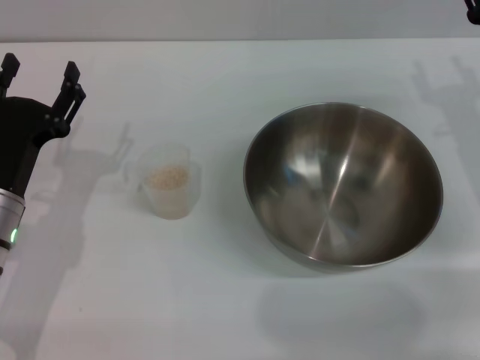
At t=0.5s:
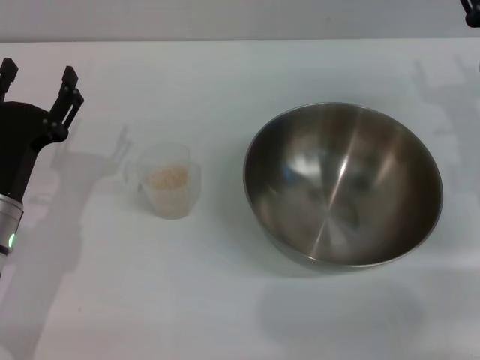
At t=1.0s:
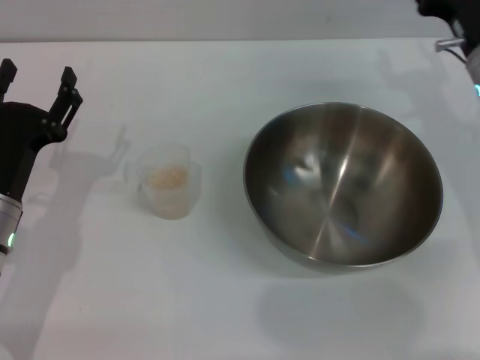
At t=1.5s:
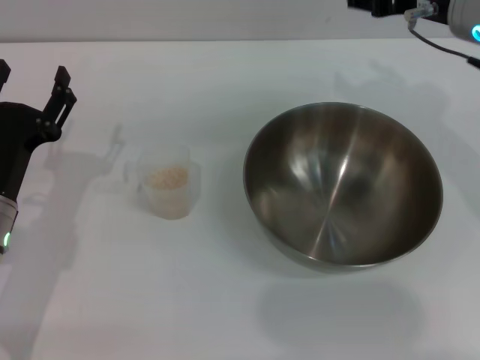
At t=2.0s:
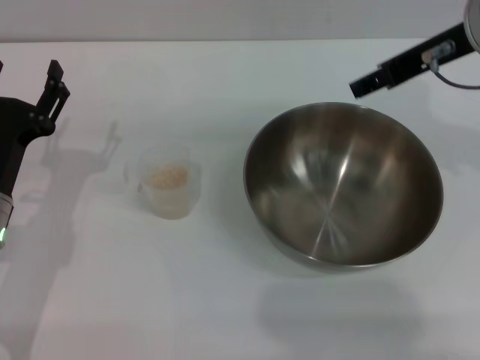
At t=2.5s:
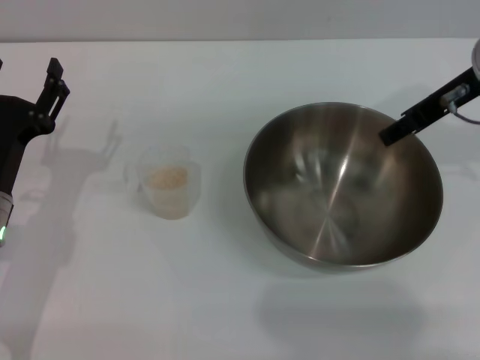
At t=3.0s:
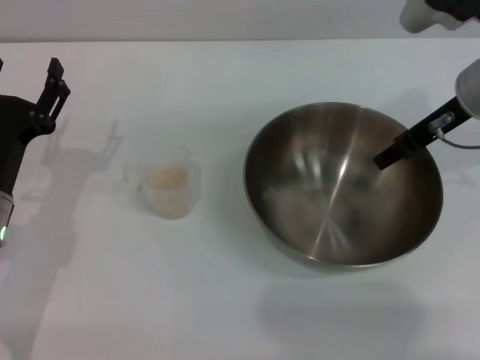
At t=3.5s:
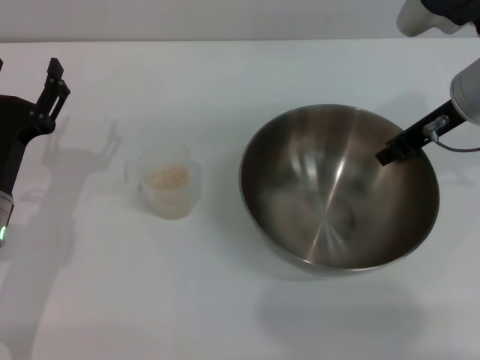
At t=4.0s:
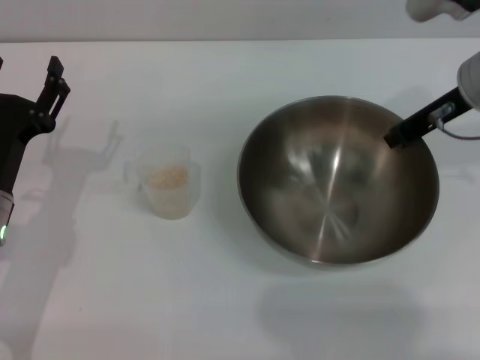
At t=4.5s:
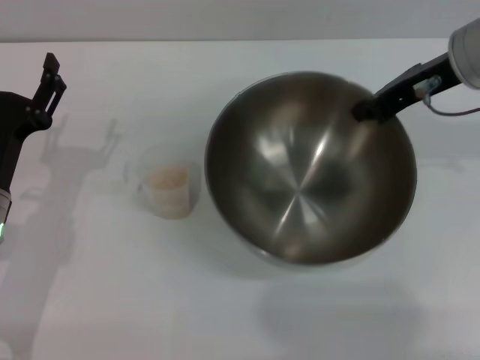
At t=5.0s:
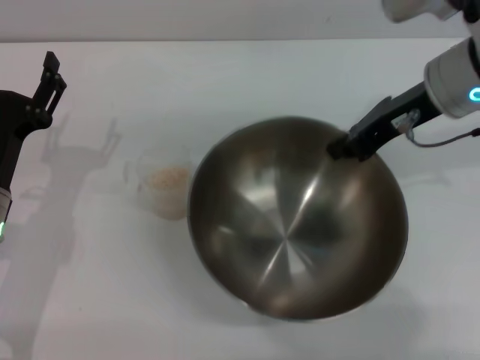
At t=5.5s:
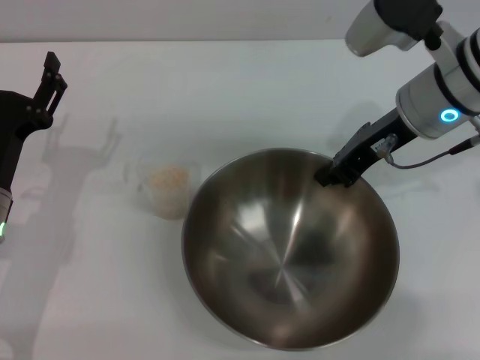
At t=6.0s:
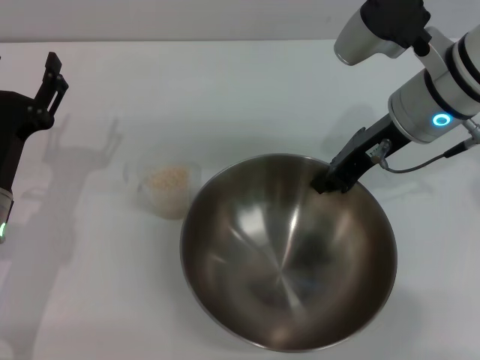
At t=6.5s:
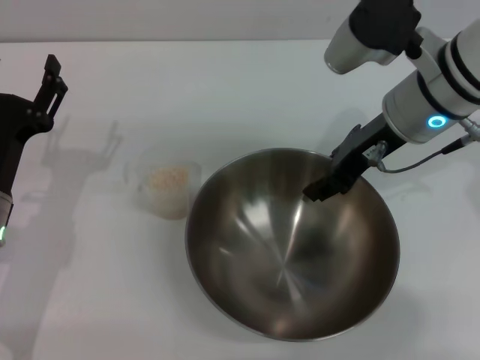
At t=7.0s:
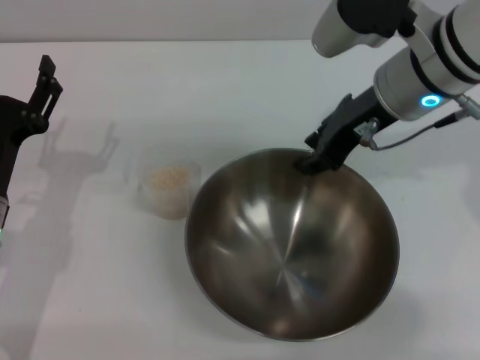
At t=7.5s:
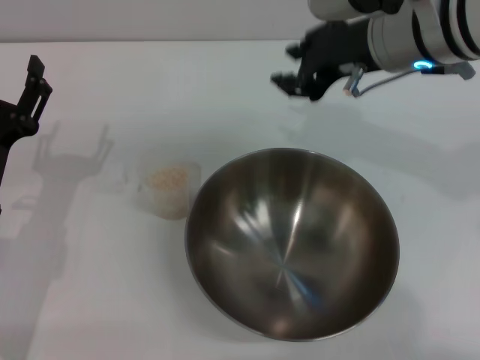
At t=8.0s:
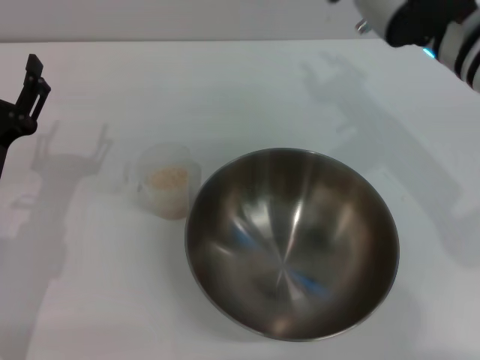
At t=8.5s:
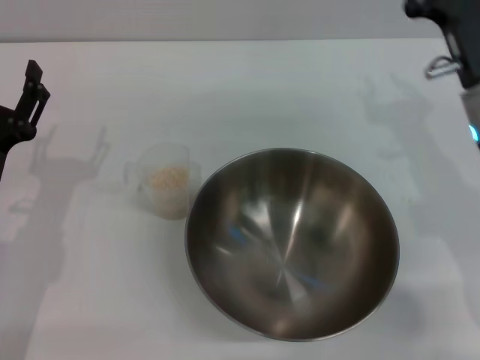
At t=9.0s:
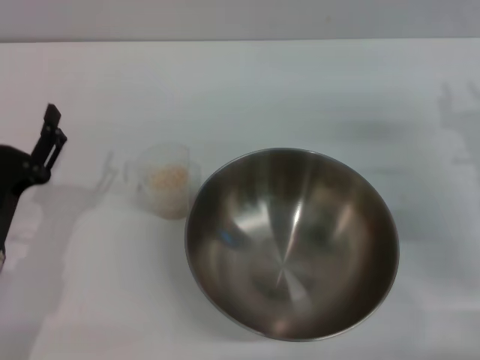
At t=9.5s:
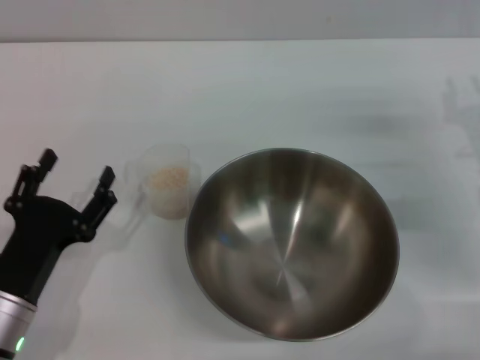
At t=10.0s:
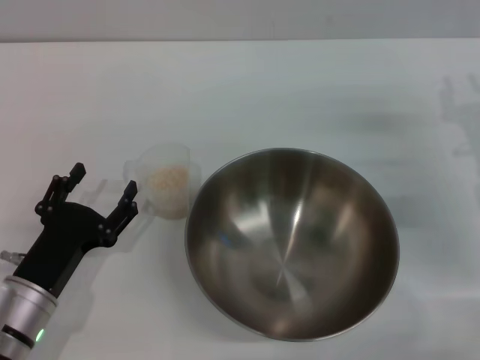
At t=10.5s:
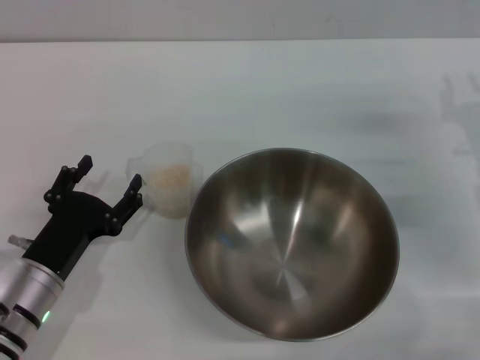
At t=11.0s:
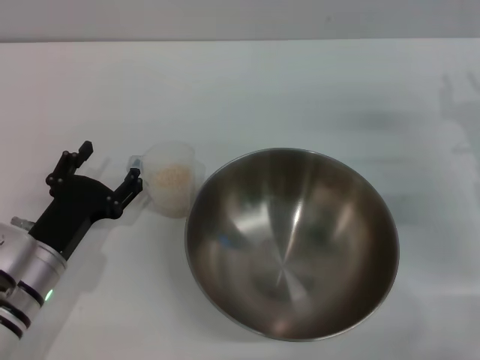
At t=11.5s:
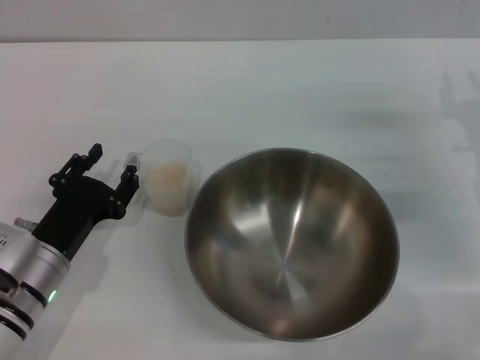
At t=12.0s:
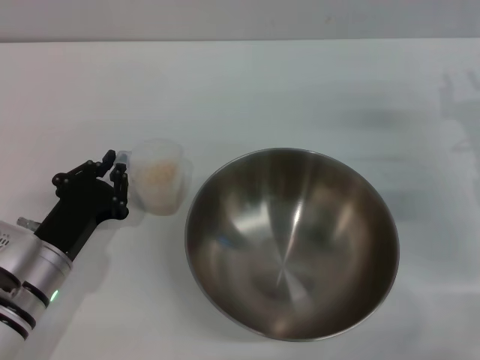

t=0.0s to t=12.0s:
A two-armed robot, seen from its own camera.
Task of the whole recording: Place the bowl in the middle of the table with one hand and pour the rice from the grain cup into it with the other hand.
Step, t=0.0s to t=4.0s: Pick up the bowl with the right gripper.
Step, t=4.5s to t=7.0s: Place the bowl in the center of view with the right gripper.
t=0.0s to t=2.0s: The right gripper travels upward and to the left by about 20 cm.
t=2.0s to t=4.0s: The right gripper heads downward, covering some 5 cm, and closes.
t=4.0s to t=6.0s: The right gripper moves to the left, some 5 cm.
t=6.0s to t=8.0s: The right gripper opens.
t=8.0s to t=10.0s: The left gripper is displaced backward and downward by about 10 cm; the right gripper goes some 20 cm to the right and downward.
t=10.0s to t=12.0s: The left gripper closes its fingers.

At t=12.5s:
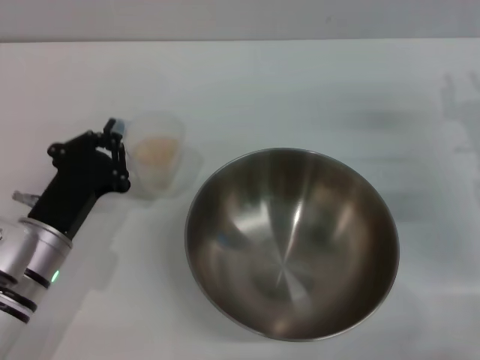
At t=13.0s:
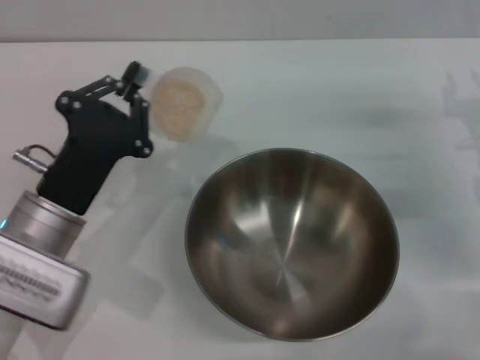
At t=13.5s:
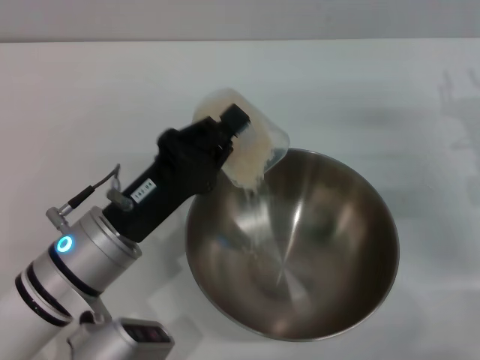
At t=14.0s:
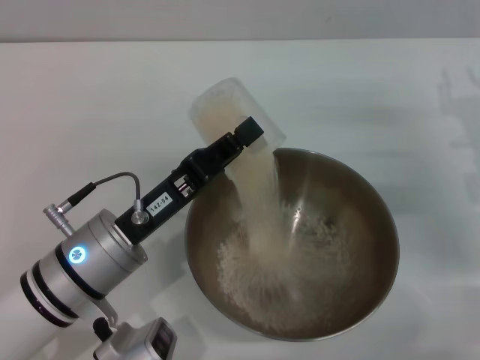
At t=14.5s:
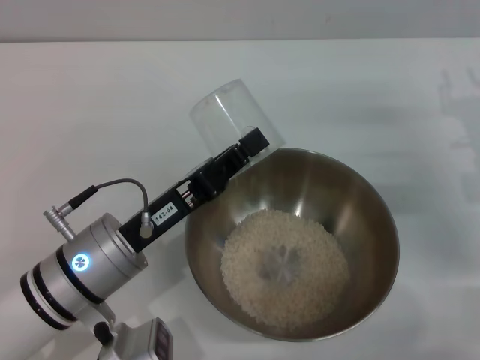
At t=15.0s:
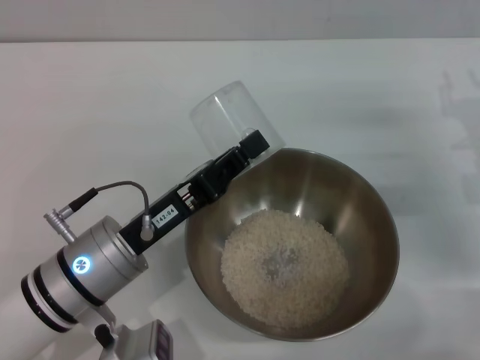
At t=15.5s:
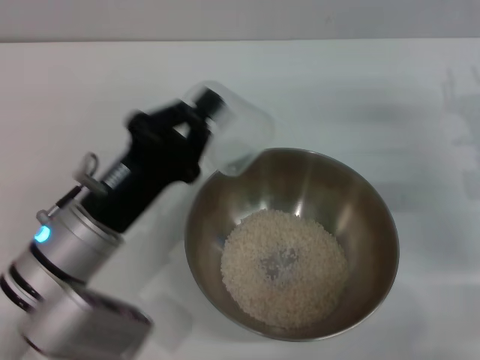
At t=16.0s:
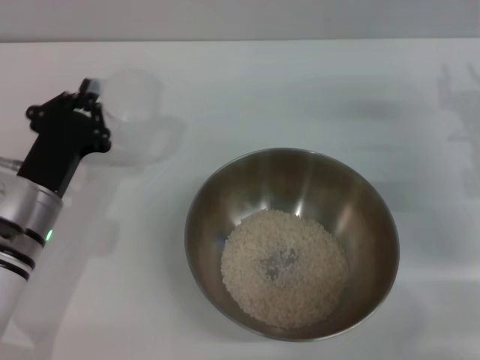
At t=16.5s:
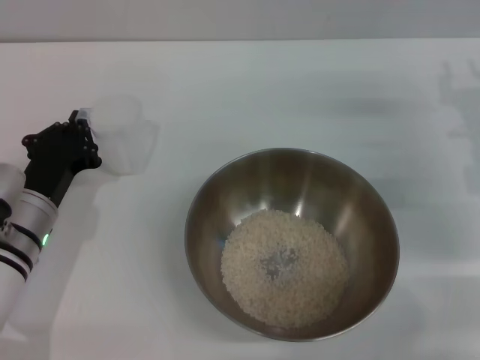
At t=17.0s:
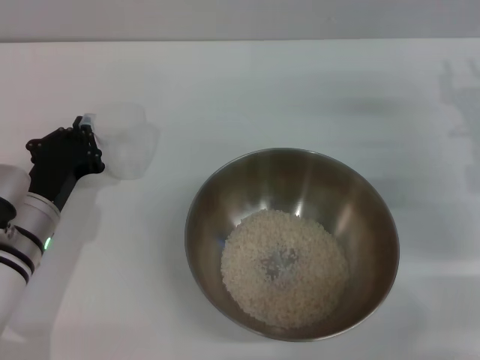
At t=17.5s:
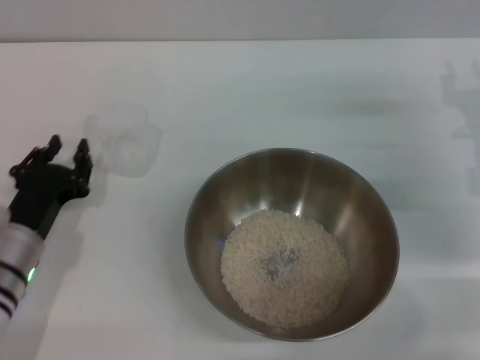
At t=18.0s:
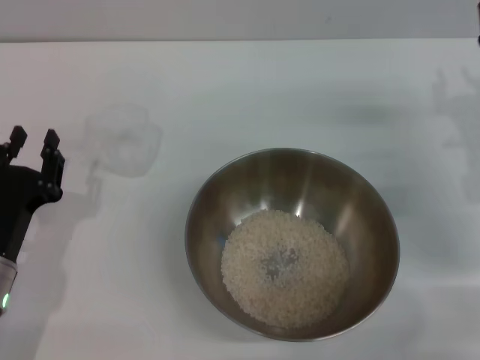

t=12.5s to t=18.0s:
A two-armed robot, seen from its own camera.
Task of the whole recording: Place the bowl in the middle of the table with one hand and pour the rice from the grain cup into it with the other hand.
Step, t=13.0s to t=15.5s: Pour the rice from the cup into the bowl with the left gripper.
Step, t=16.0s to t=17.5s: Place the cup on the table with the left gripper.
t=12.5s to t=14.5s: The left gripper shifts roughly 5 cm to the right.
t=14.5s to t=16.0s: The left gripper travels to the left by about 5 cm.
t=16.0s to t=18.0s: The left gripper goes some 5 cm backward, and opens.

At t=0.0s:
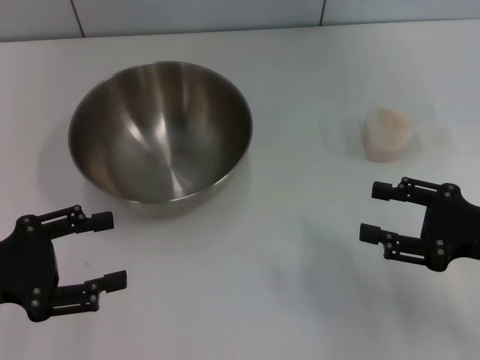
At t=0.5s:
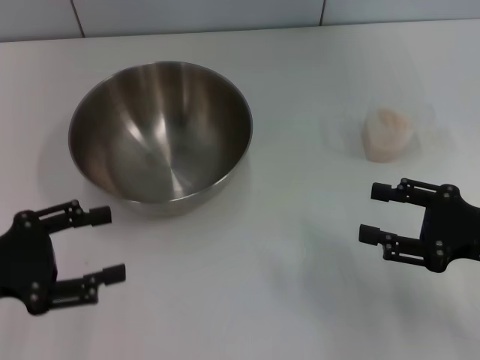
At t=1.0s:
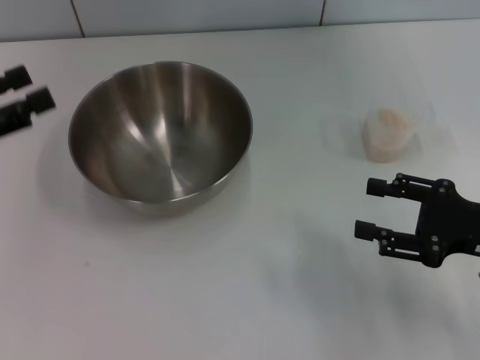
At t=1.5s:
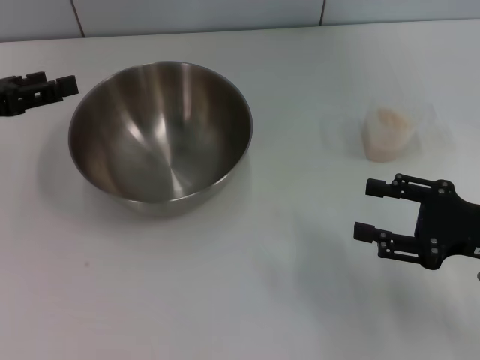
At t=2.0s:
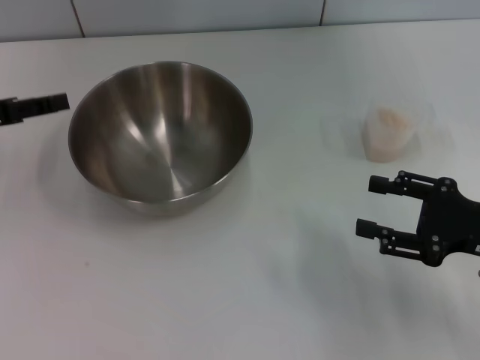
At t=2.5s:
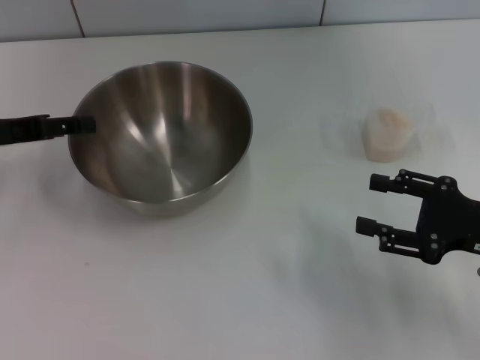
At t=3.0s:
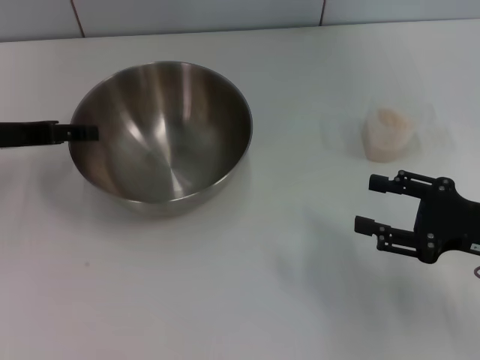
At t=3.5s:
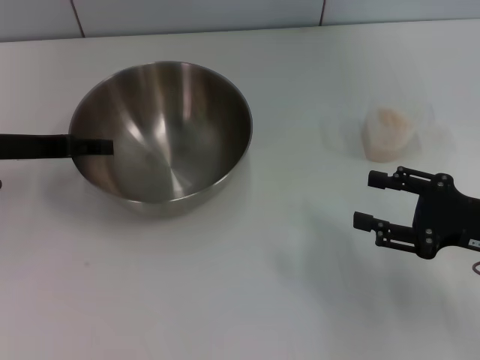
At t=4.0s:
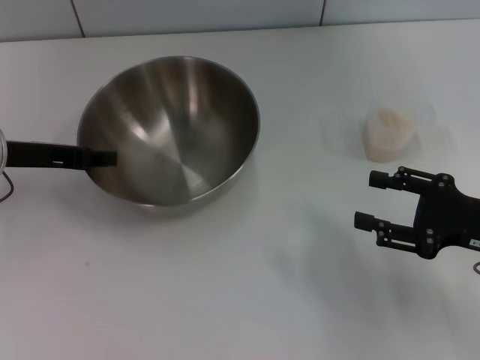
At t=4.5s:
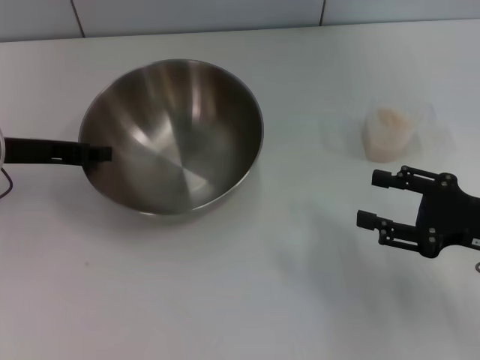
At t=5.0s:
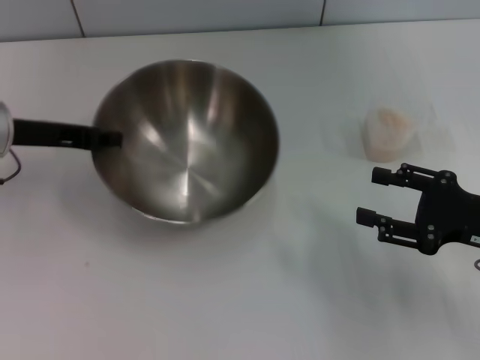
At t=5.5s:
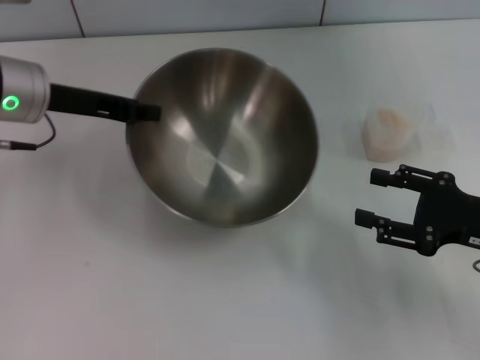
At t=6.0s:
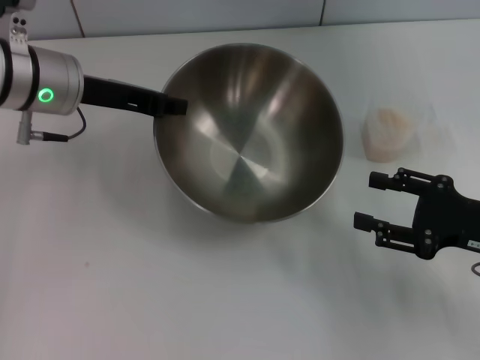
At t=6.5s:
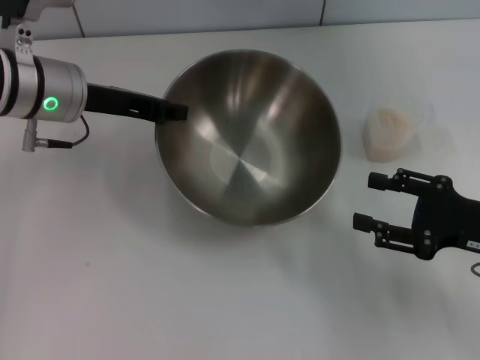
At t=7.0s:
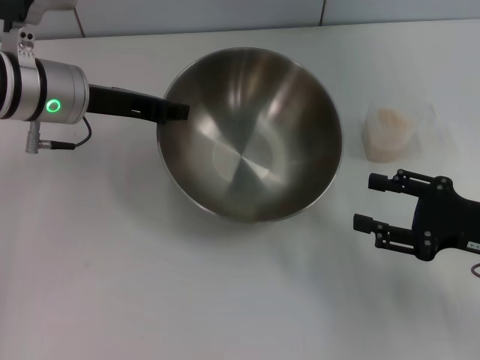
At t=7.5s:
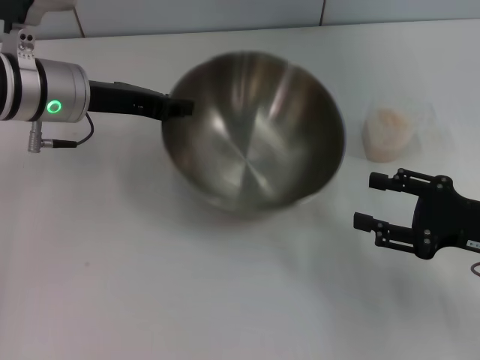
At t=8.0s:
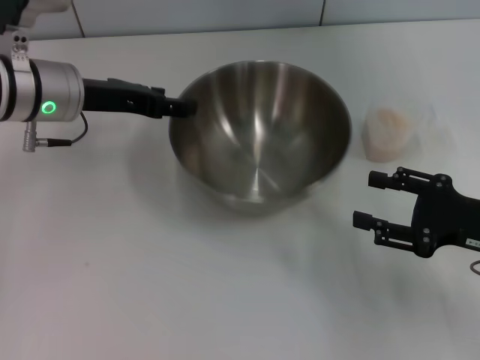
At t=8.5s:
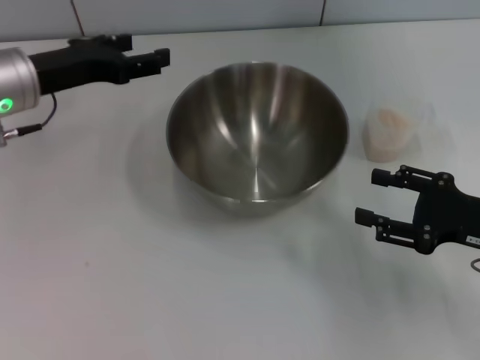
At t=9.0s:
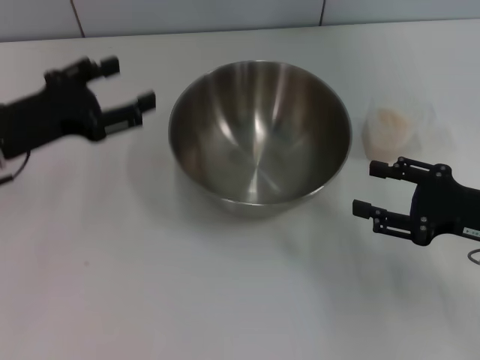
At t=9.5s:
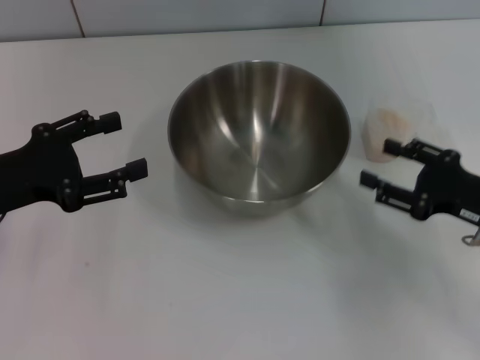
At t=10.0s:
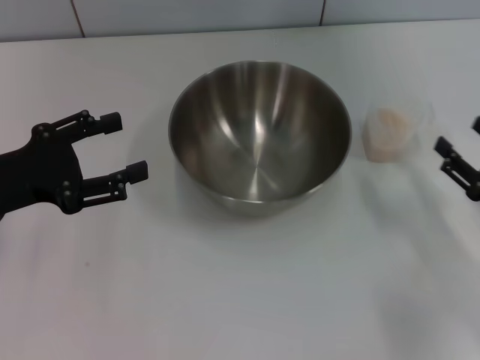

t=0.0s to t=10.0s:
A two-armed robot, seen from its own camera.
Task of the whole recording: Place the bowl in the middle of the table with one hand and pour the rice from the grain cup into it with the other hand.
Step, t=0.0s to t=5.0s: Pick up the bowl with the left gripper.
Step, t=5.5s to t=8.0s: Place the bowl in the center of view with the left gripper.
t=0.0s to t=2.0s: The left gripper shifts approximately 10 cm forward.
t=2.0s to t=4.0s: The left gripper heads to the right, covering roughly 5 cm.
t=4.0s to t=6.0s: The left gripper goes some 10 cm to the right, and closes its fingers.
t=6.0s to t=8.0s: The left gripper opens up.
t=8.0s to t=10.0s: The right gripper ends up approximately 5 cm from where it was. Meanwhile the left gripper moves backward and to the left, approximately 15 cm.
